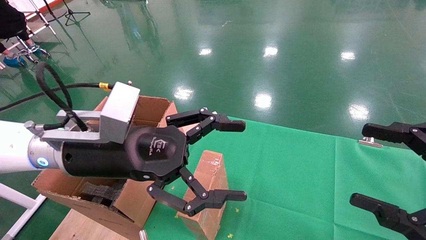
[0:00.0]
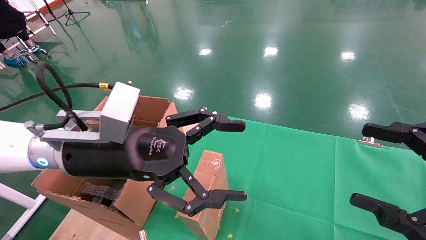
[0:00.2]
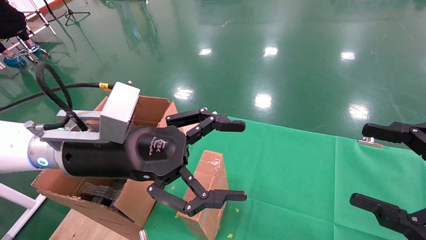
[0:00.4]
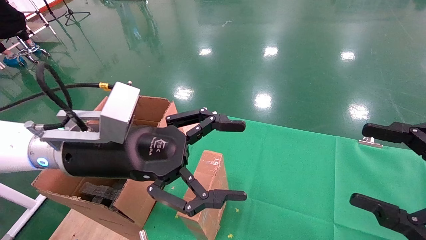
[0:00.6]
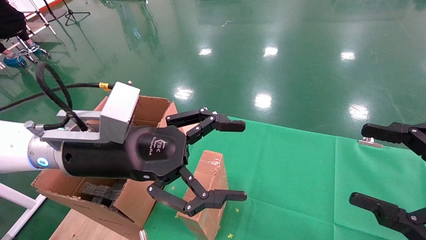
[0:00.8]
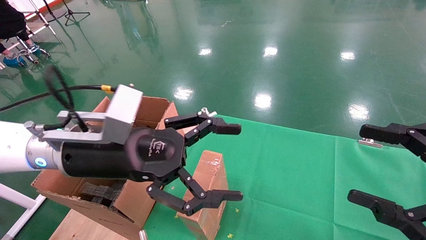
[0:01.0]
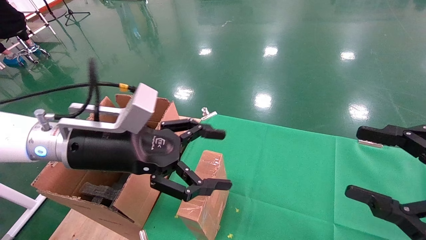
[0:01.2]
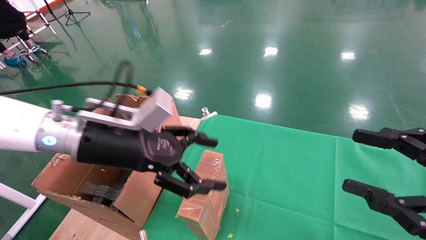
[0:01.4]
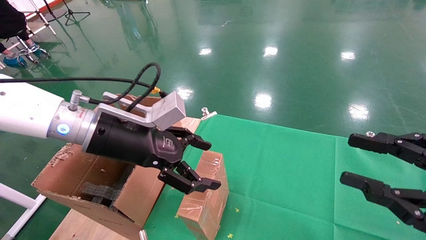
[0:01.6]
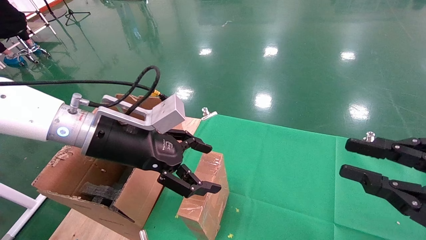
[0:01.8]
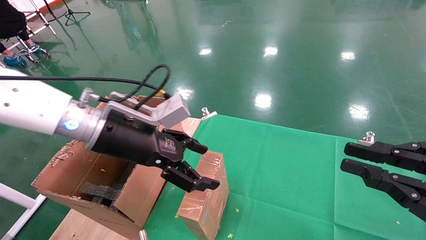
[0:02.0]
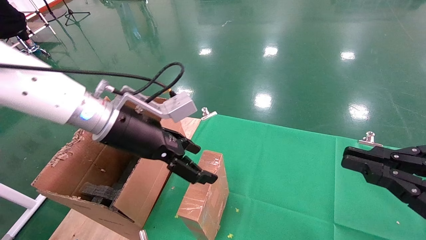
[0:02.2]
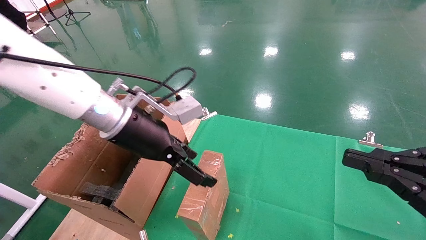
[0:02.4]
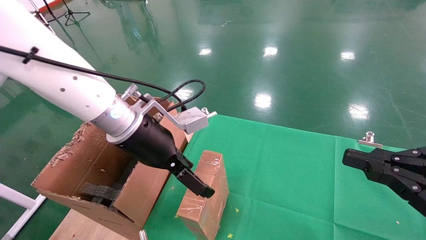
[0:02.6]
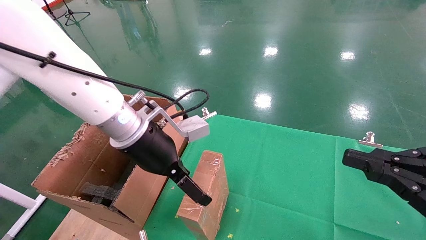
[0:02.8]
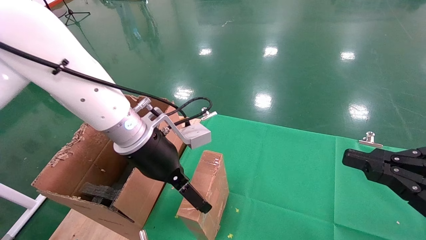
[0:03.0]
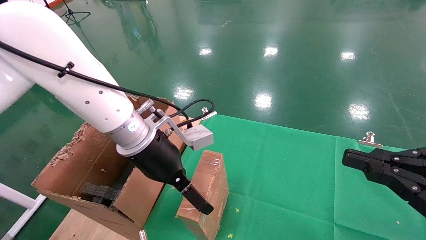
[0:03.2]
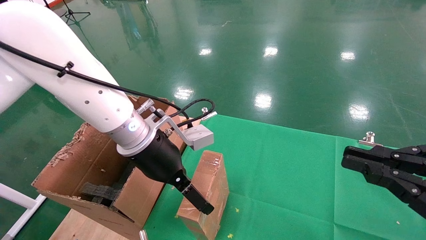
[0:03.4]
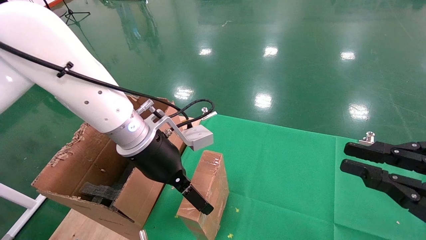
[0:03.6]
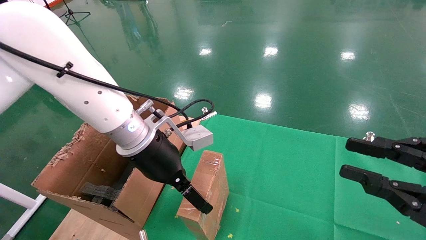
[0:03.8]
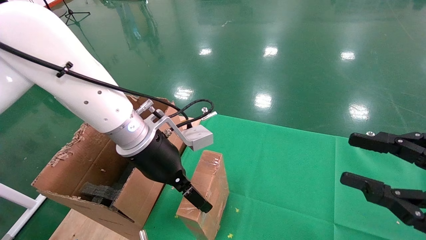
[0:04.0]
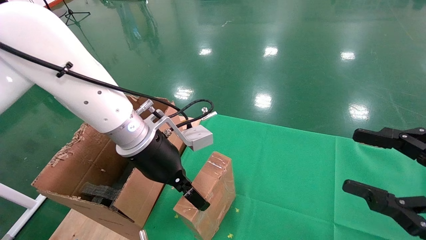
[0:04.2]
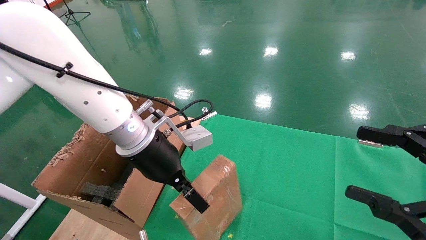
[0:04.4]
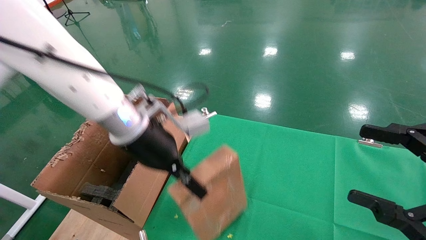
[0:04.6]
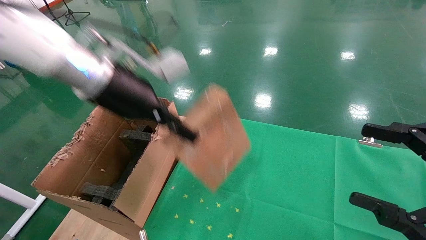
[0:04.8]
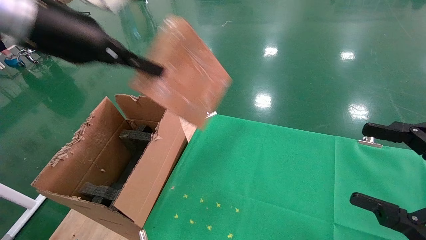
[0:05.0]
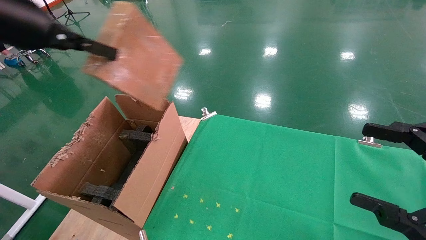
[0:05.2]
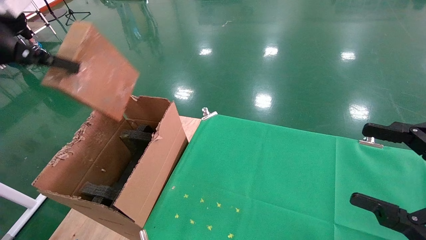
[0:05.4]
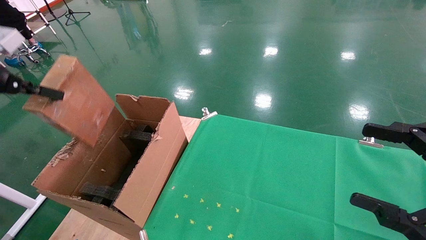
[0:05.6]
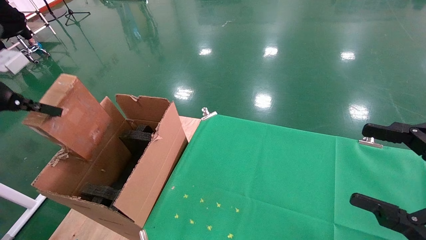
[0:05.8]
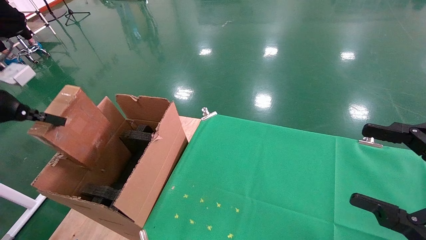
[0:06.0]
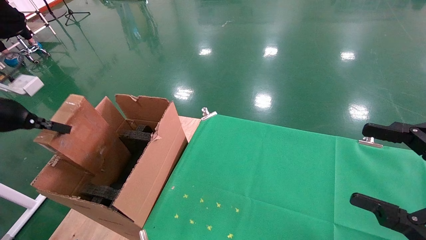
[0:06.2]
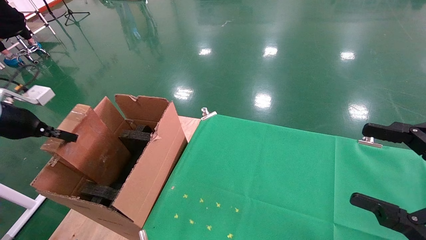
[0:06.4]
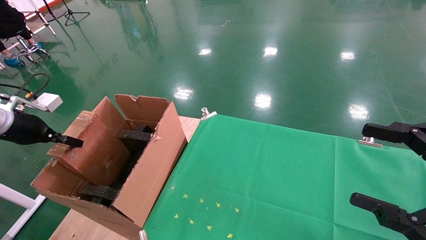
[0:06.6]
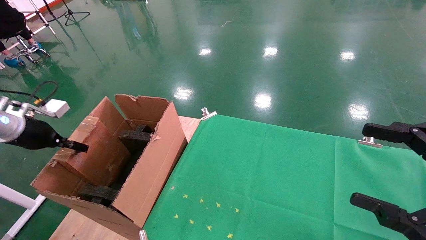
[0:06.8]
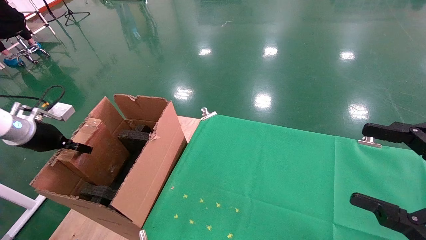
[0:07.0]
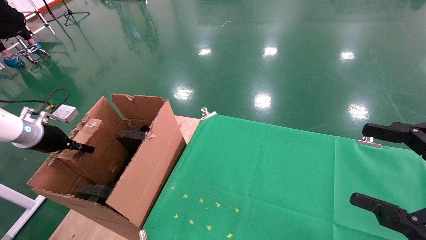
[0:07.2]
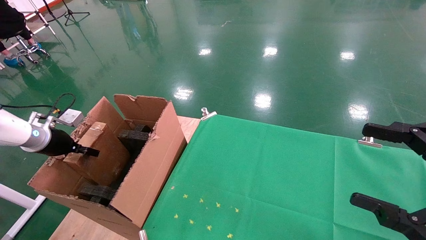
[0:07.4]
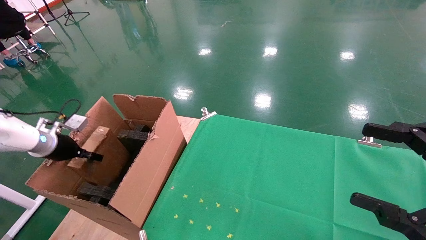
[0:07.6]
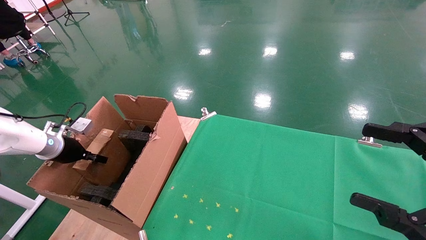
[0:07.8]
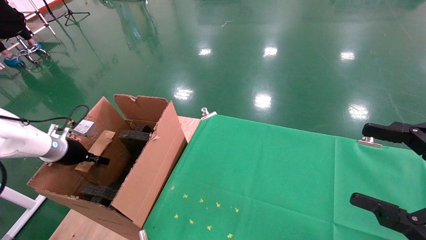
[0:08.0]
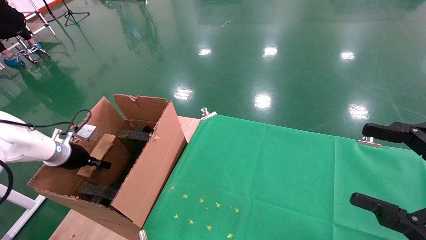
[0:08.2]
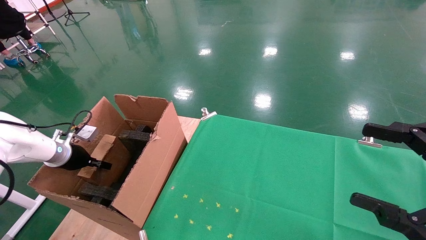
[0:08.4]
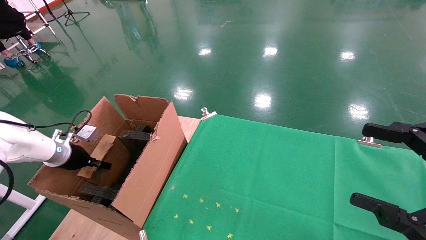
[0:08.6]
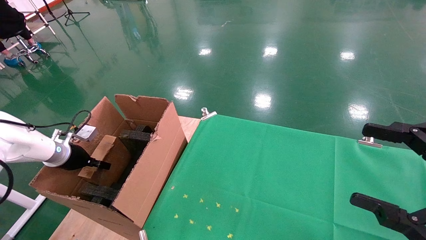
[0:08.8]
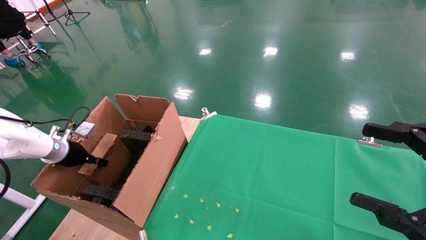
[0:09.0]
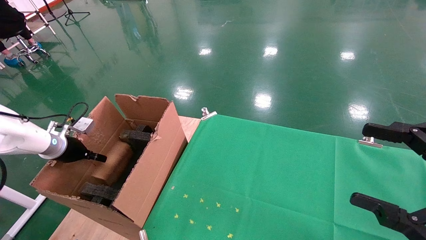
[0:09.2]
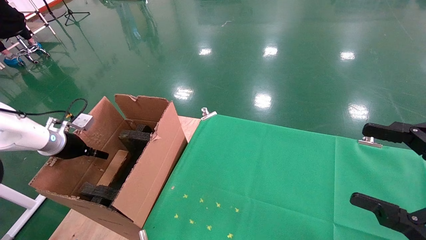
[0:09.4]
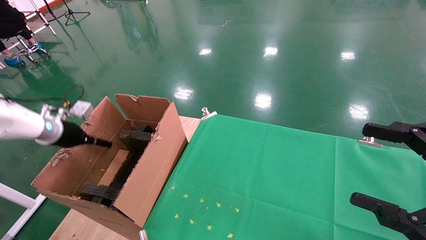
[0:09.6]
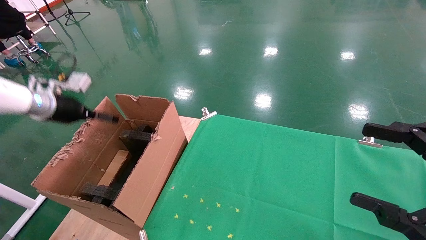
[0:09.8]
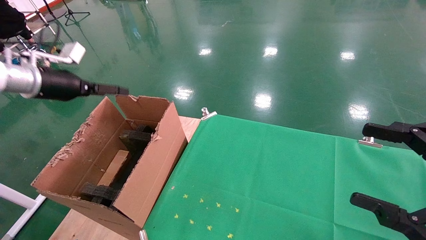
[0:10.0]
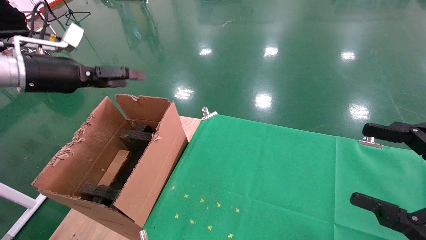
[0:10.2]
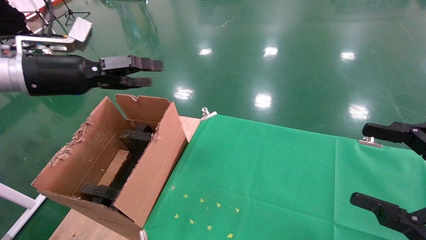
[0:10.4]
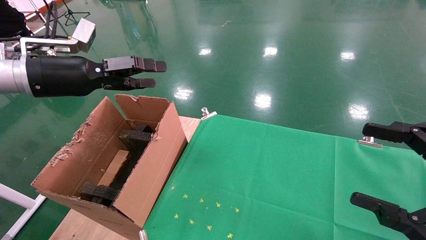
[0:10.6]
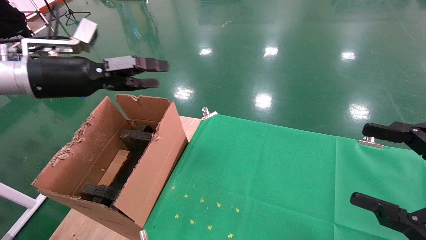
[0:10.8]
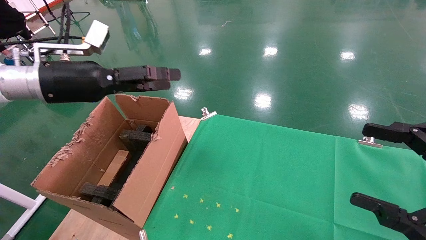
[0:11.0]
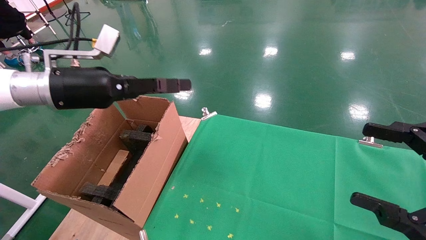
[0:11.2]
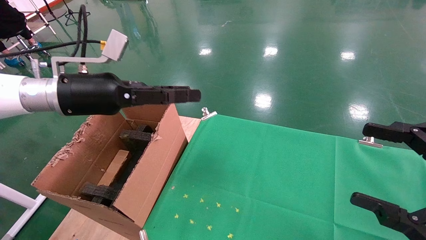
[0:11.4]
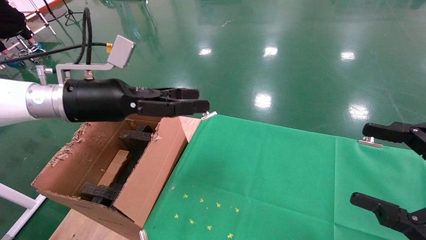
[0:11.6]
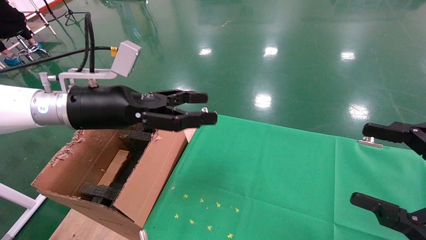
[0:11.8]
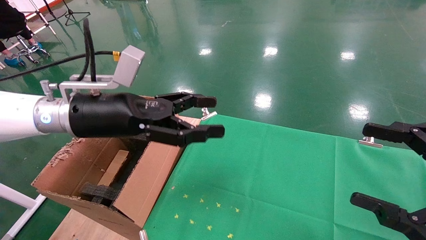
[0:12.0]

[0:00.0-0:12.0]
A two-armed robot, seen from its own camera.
Task of the whole recording: using a robotic arm to pick up a cardboard box and palace it the carton.
Step, 0:01.4 to 0:04.4: Pick up the mouse and the power cord paper box.
Step, 0:04.6 to 0:09.6: Place the mouse and the power cord paper box into the container.
0:00.0 to 0:01.6: The right gripper closes its fingers.
0:01.6 to 0:03.0: The left gripper moves to the right, about 5 cm. The right gripper closes.
0:03.0 to 0:04.4: The right gripper opens, while the left gripper closes.
0:04.4 to 0:06.0: The left gripper moves to the left, approximately 35 cm.
0:06.0 to 0:07.6: The left gripper goes roughly 20 cm downward and forward.
0:07.6 to 0:09.0: The grippers move only a little.
0:09.0 to 0:10.4: The left gripper goes approximately 25 cm upward and to the right, and opens its fingers.
0:10.4 to 0:12.0: The left gripper goes some 15 cm to the right and downward.

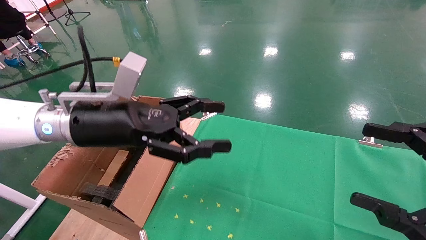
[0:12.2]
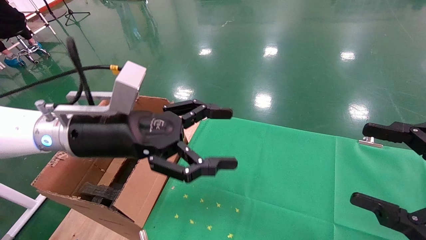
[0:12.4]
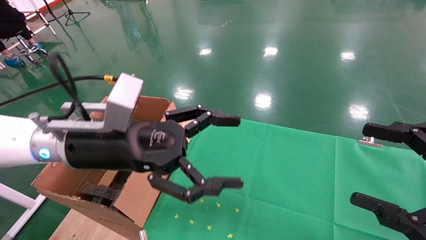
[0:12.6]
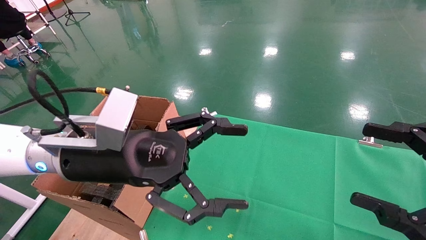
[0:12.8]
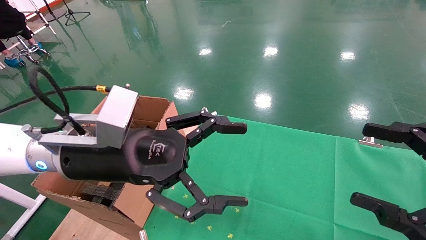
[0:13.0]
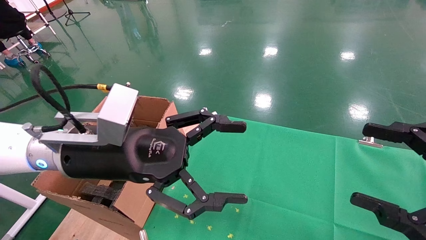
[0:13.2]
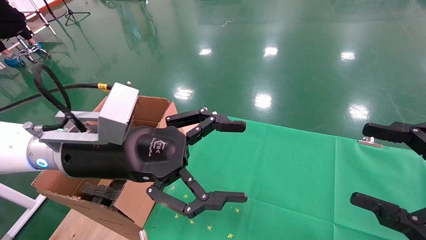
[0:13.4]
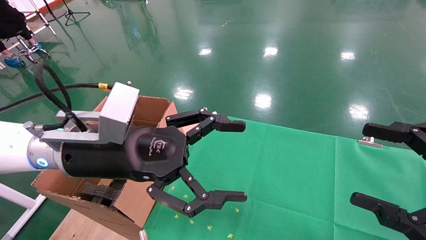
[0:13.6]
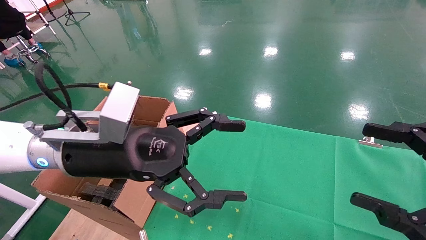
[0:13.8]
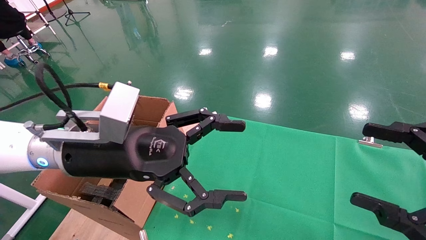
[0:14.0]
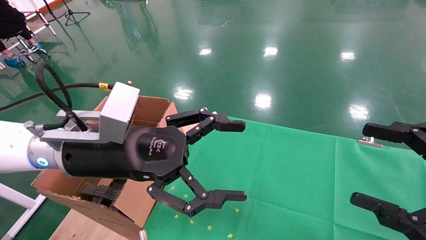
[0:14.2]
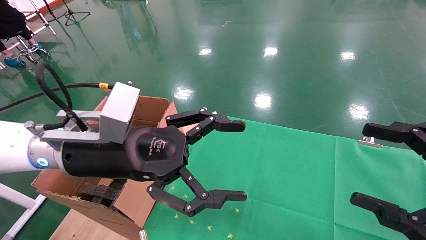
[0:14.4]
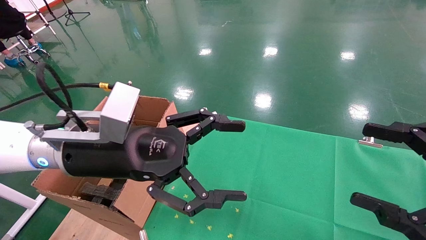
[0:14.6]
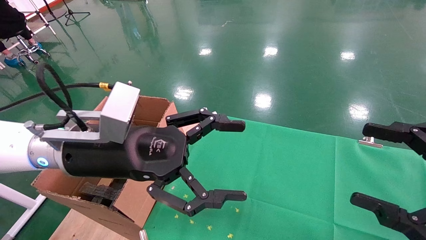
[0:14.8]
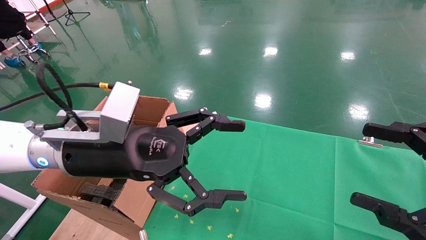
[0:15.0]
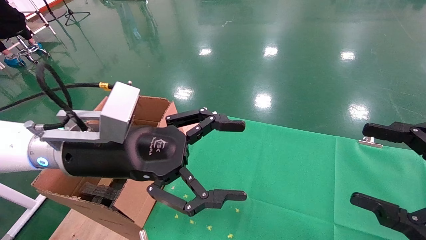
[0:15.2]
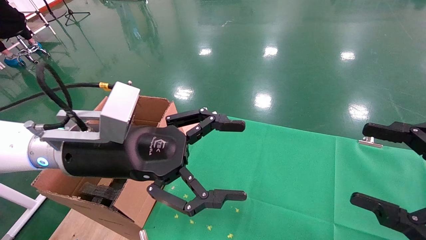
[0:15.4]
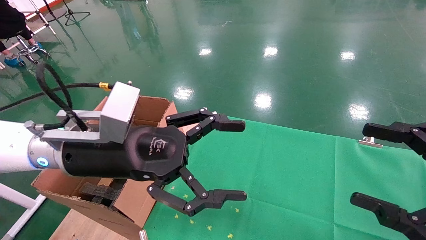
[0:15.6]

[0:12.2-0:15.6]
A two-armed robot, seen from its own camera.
Task of the whole recording: using a robotic arm to pick up a cardboard box and palace it the carton.
0:12.2 to 0:13.8: The left gripper changes place by about 5 cm.
0:13.8 to 0:15.6: Both grippers stay put.
